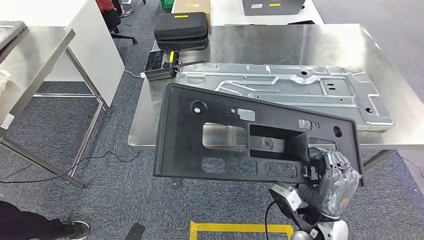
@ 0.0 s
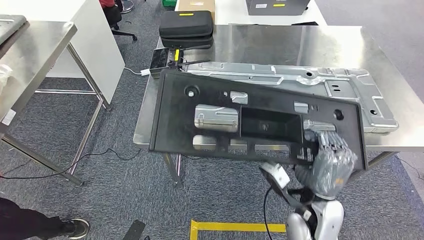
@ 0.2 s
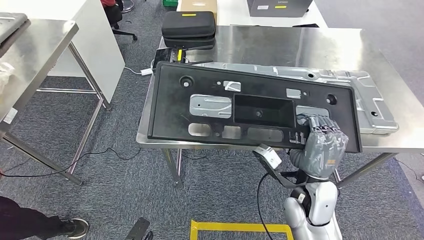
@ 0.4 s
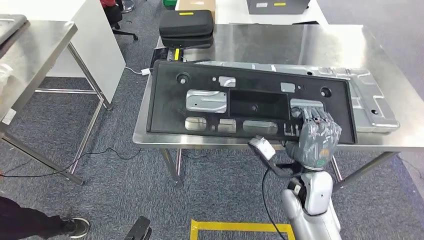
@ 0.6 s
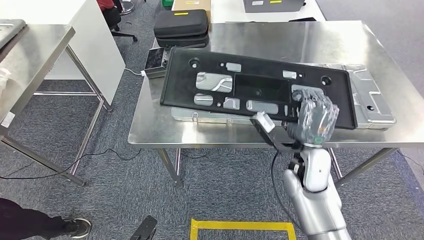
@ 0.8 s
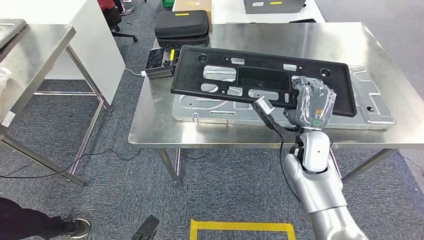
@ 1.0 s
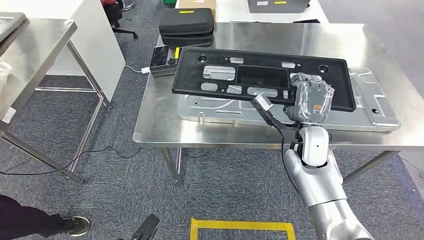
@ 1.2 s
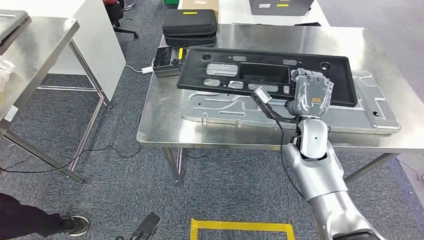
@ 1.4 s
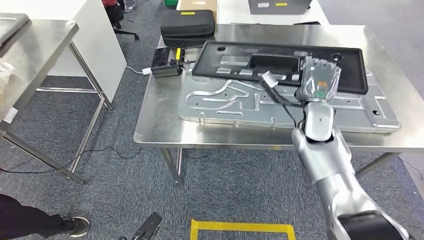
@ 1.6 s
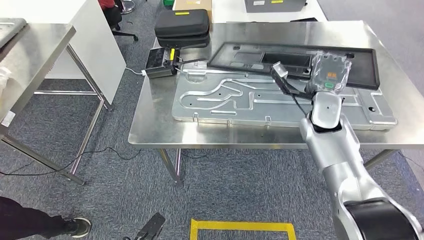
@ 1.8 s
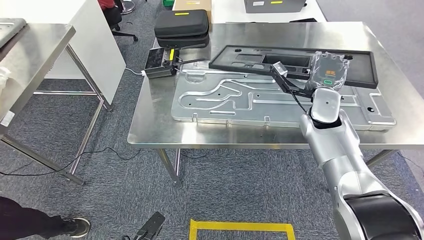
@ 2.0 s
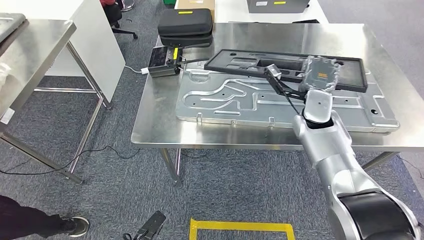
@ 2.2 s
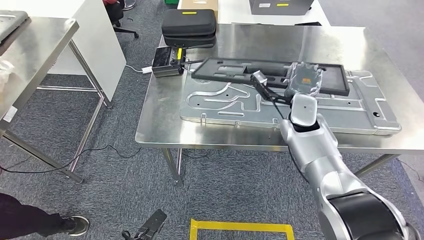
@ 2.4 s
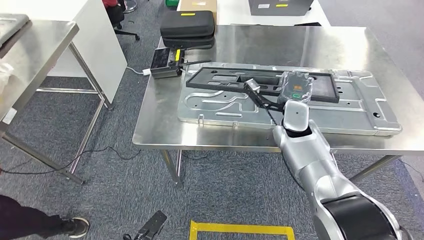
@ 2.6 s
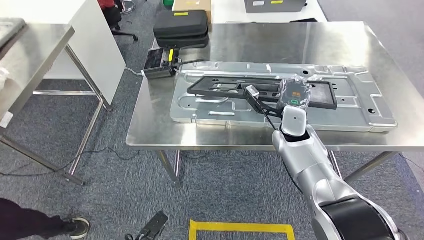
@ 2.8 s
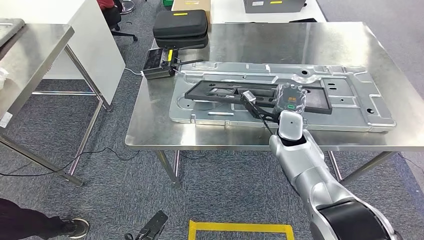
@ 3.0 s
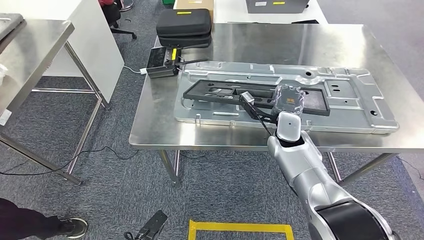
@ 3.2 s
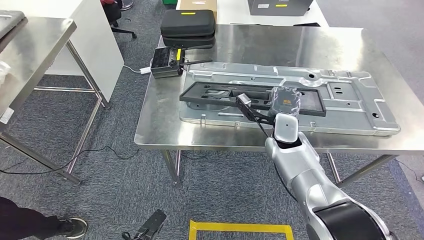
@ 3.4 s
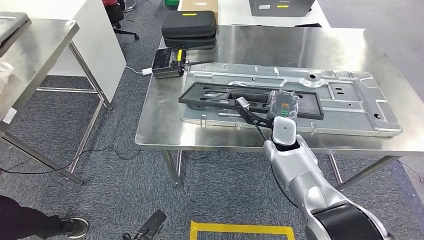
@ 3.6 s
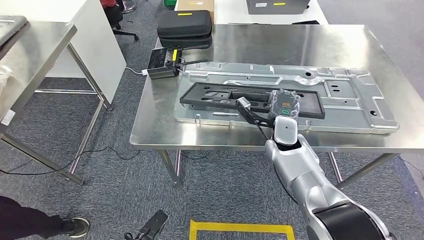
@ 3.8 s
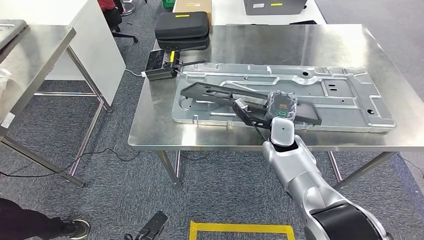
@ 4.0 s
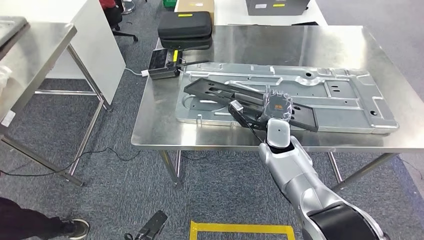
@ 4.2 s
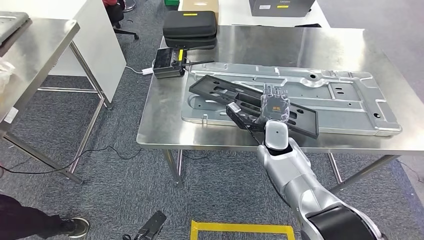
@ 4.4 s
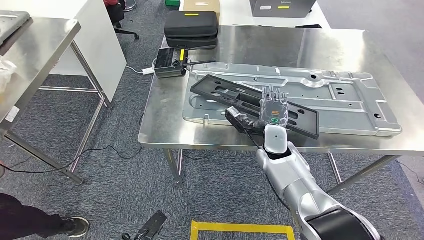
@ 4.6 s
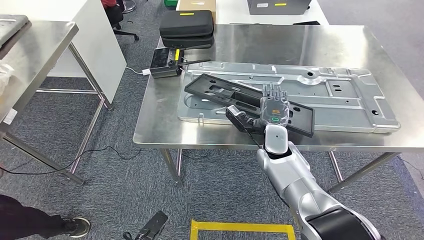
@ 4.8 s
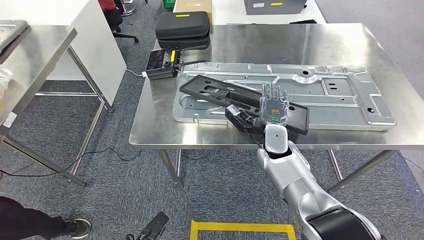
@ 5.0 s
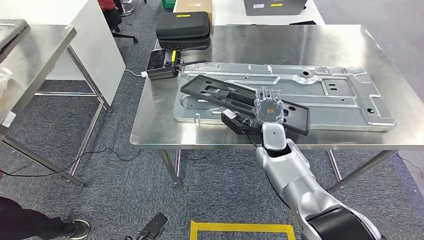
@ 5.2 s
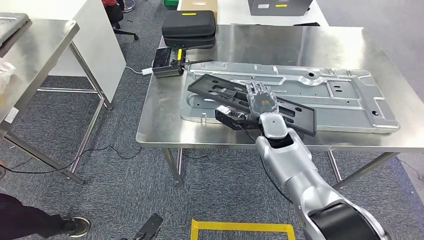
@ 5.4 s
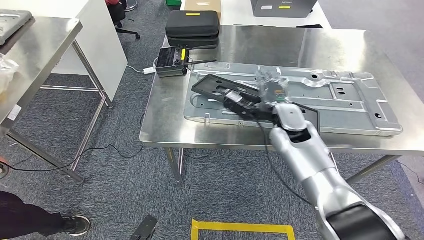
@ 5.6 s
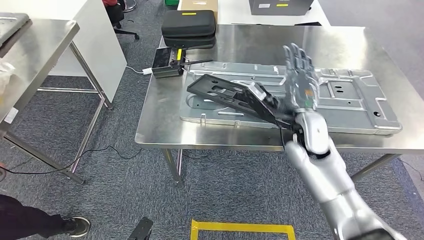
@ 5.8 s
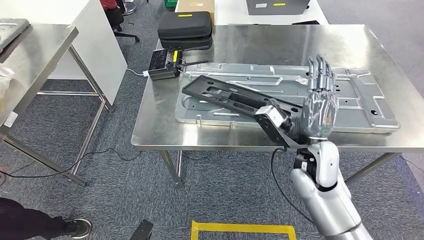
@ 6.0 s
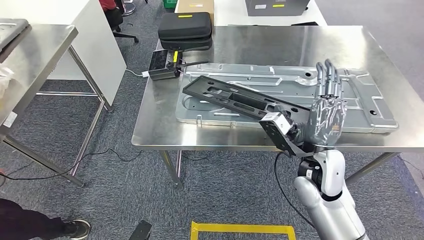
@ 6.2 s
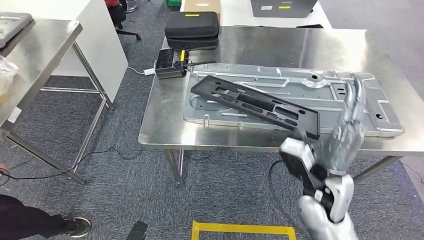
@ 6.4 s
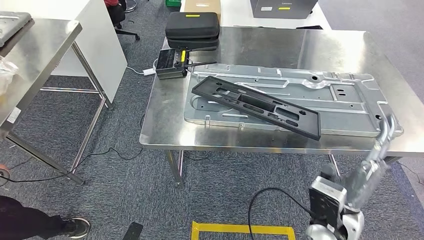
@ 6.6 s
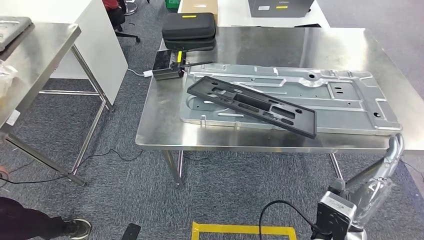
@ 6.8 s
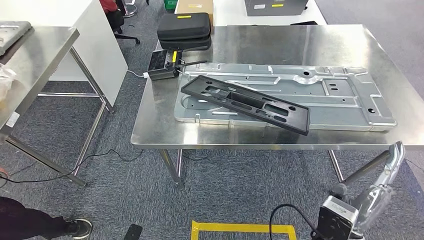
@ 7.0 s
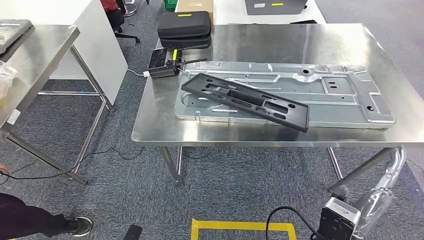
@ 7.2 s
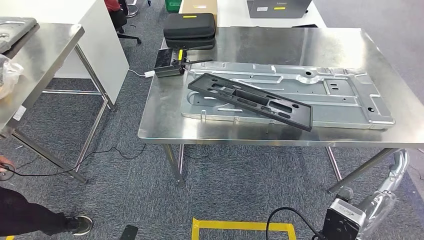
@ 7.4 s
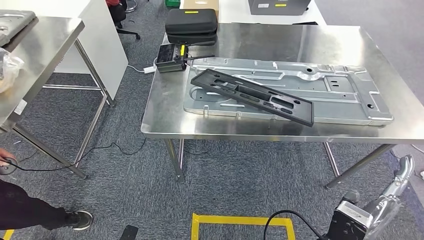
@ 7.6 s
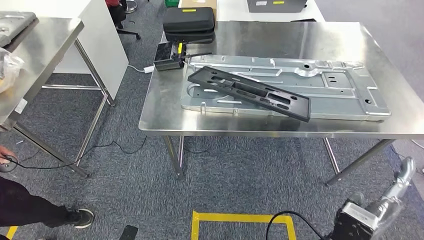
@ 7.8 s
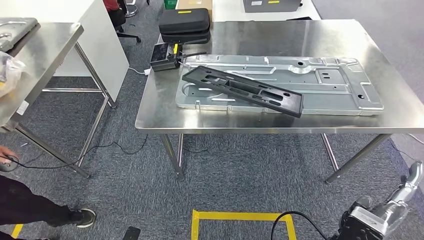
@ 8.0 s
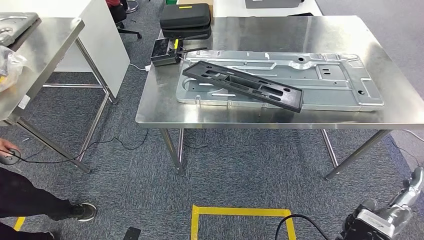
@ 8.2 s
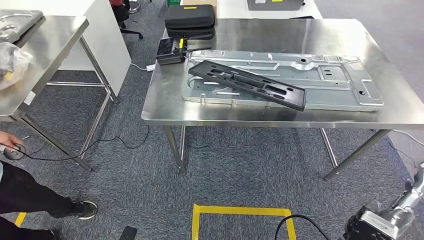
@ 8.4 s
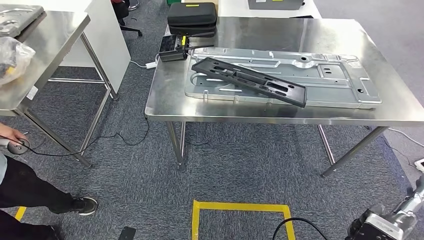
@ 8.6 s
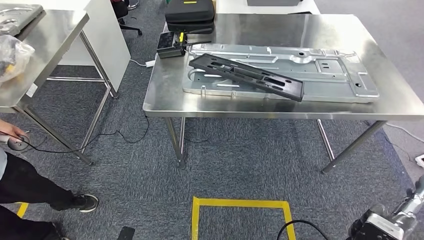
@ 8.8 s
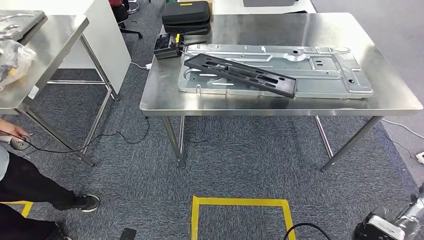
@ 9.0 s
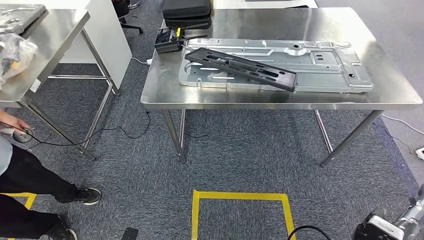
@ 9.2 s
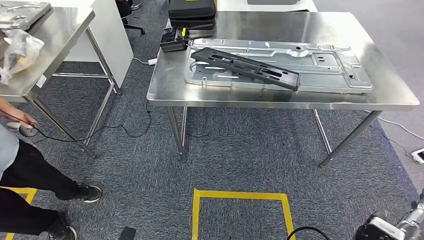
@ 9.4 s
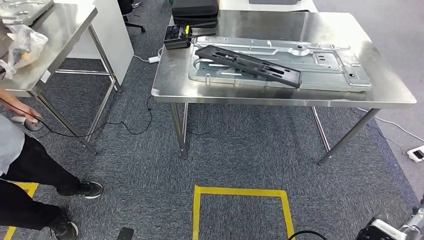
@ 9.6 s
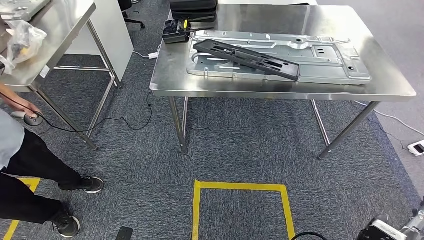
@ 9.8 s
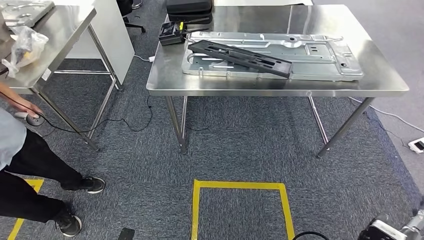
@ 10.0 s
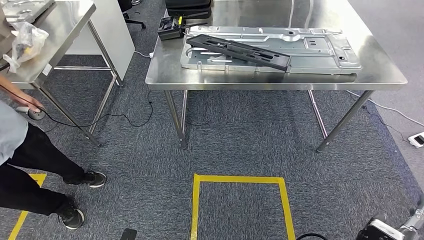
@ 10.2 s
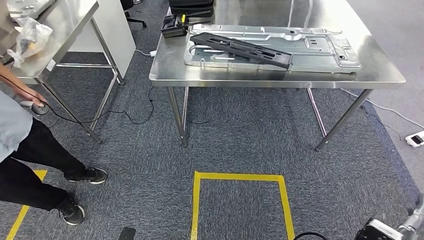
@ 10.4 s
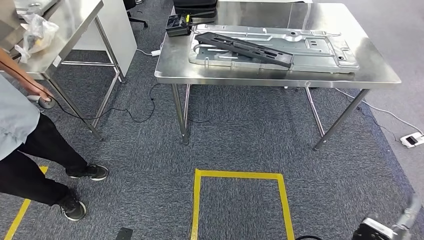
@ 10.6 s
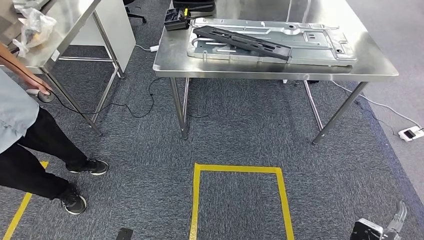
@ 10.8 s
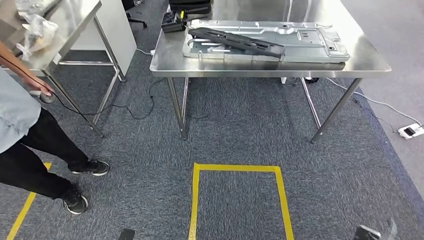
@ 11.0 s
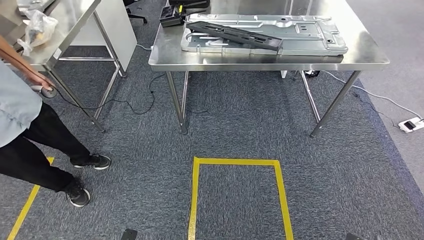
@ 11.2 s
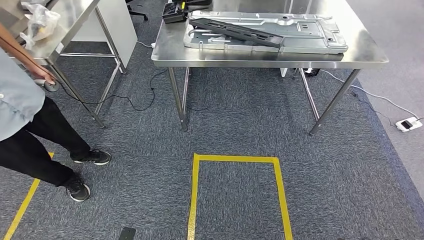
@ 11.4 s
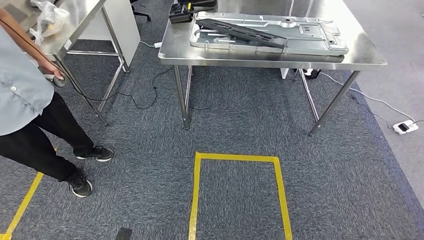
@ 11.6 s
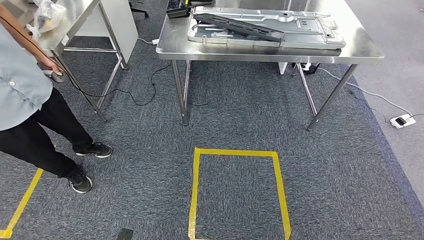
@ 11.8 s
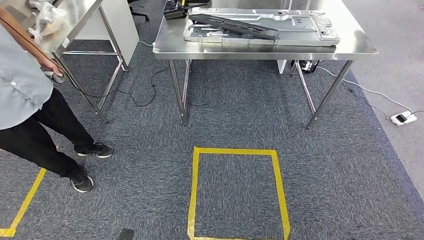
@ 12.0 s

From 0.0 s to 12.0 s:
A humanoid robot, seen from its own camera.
Step, from 1.8 s to 6.0 s: Insert the large material into the corresponding slot on the workbench.

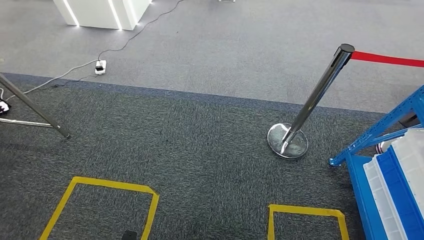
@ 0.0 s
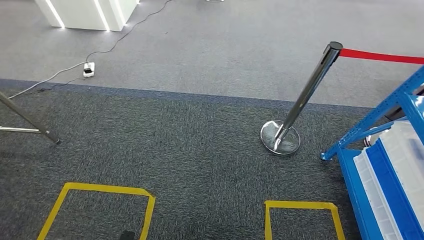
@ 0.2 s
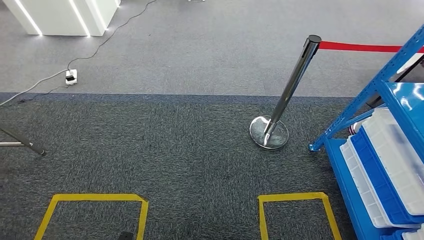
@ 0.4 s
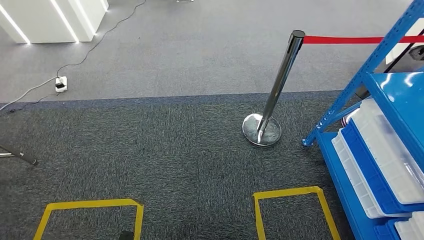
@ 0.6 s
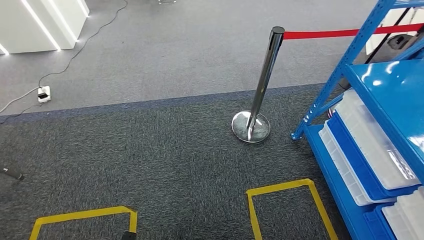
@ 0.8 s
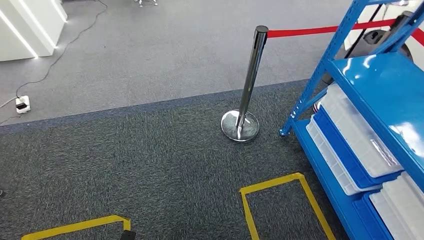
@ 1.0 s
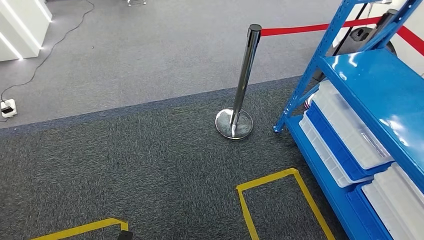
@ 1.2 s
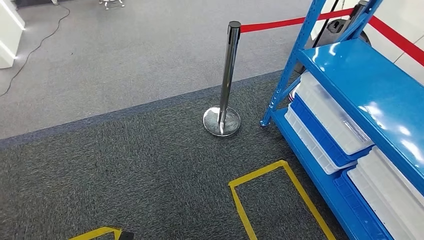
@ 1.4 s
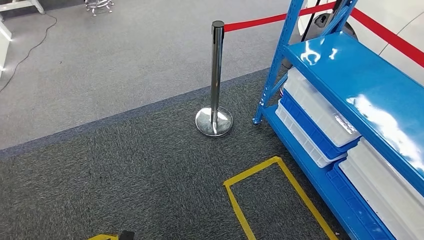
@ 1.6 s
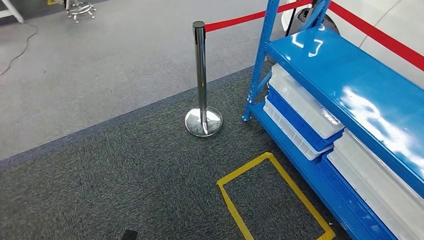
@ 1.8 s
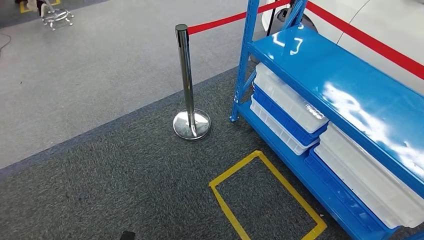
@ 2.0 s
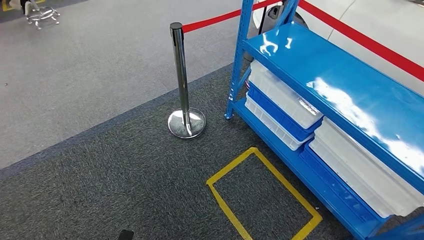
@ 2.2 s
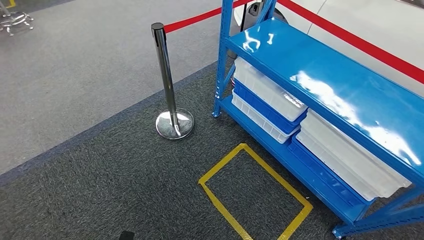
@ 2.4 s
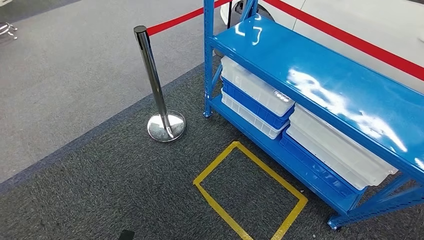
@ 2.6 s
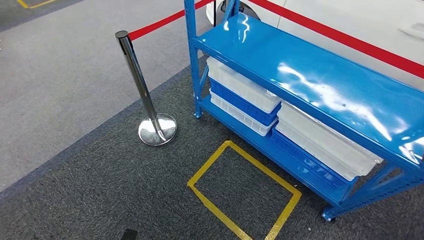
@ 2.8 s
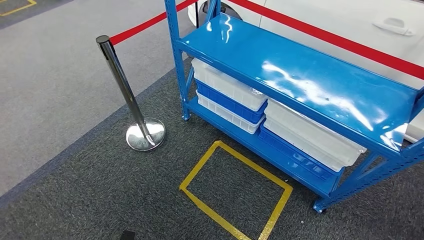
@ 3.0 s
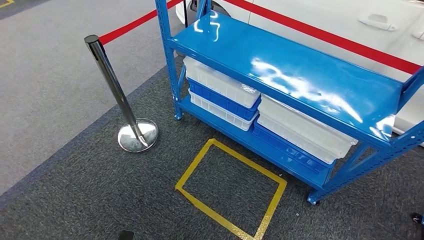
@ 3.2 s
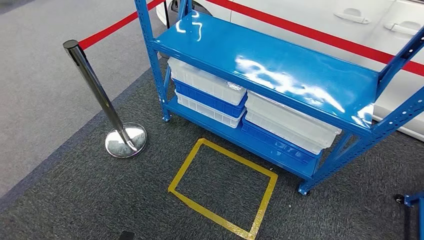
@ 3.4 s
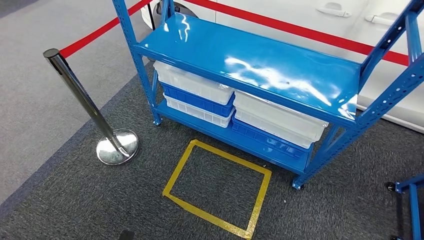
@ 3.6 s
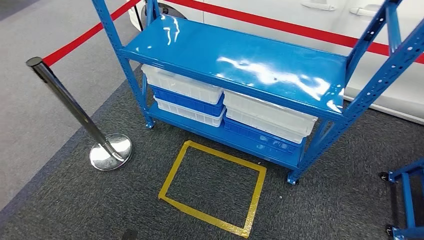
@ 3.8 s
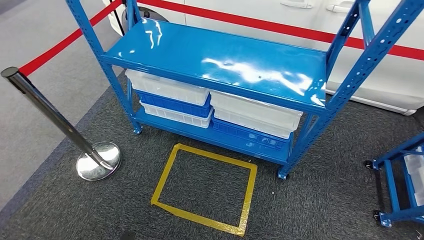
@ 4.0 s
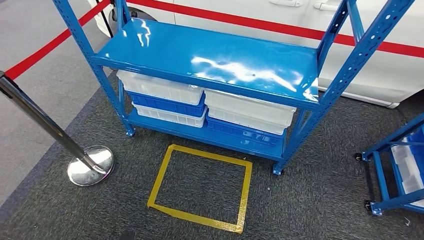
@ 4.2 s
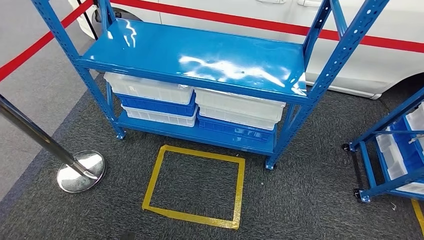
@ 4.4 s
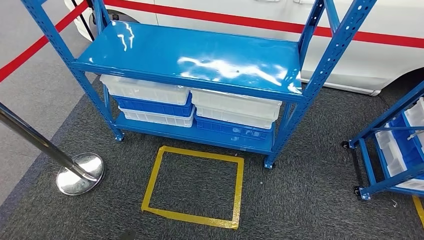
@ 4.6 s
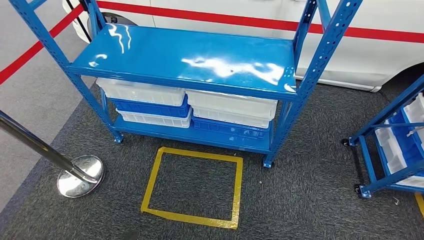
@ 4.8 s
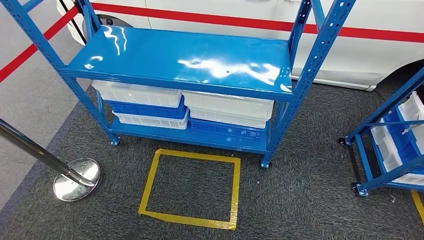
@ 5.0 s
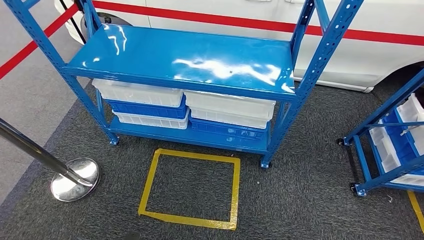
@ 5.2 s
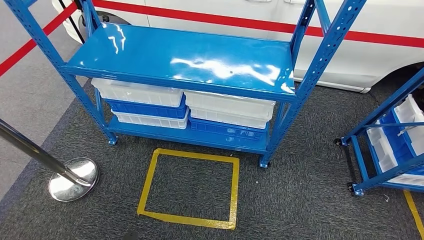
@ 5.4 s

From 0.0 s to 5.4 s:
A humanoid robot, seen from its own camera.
Step, from 0.0 s to 5.4 s: Move to the initial position of the shelf.
